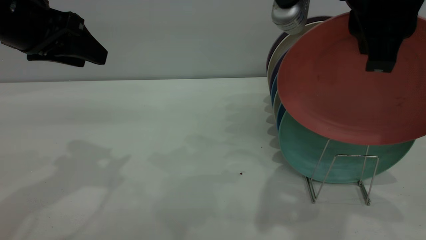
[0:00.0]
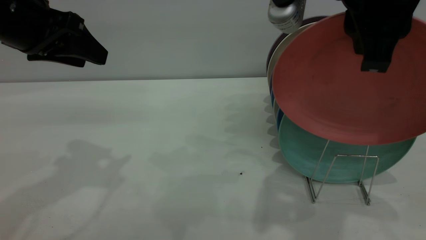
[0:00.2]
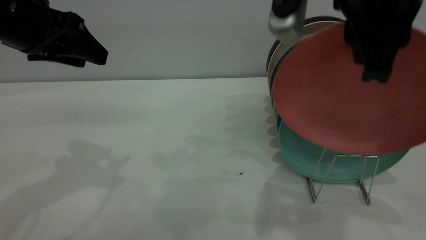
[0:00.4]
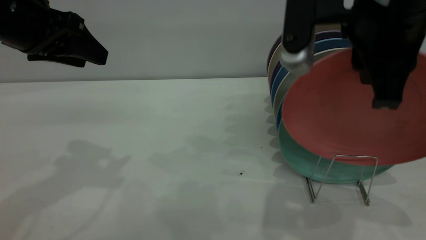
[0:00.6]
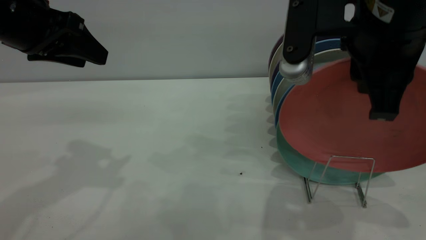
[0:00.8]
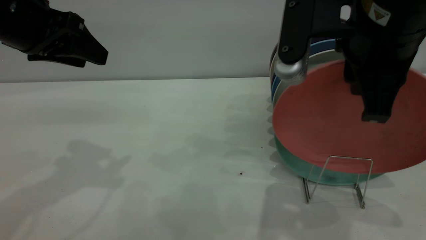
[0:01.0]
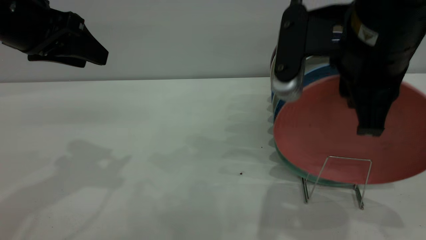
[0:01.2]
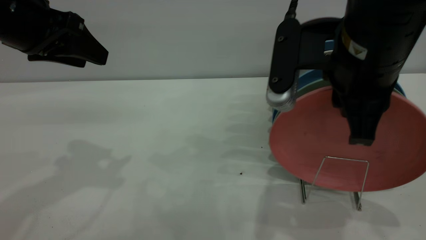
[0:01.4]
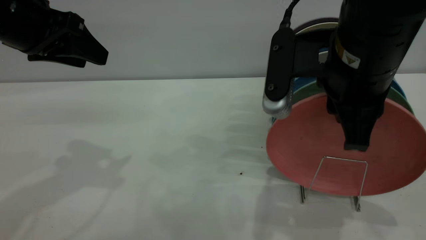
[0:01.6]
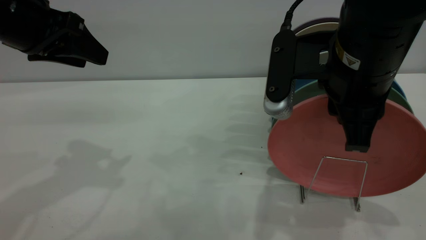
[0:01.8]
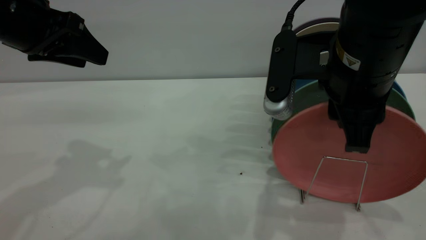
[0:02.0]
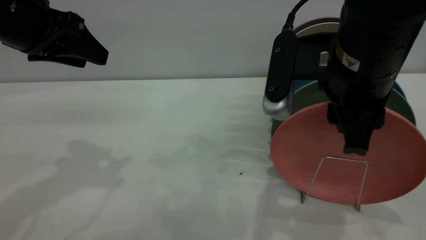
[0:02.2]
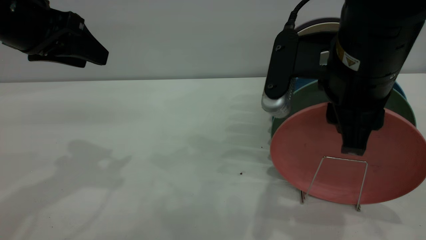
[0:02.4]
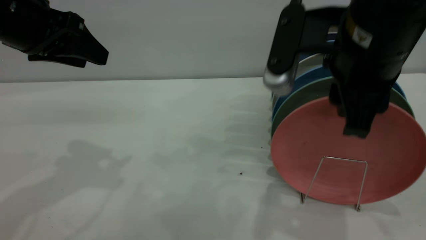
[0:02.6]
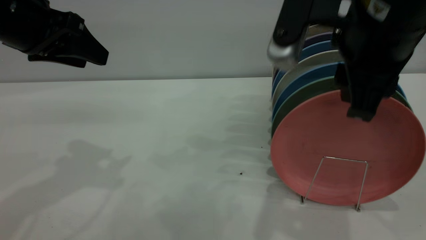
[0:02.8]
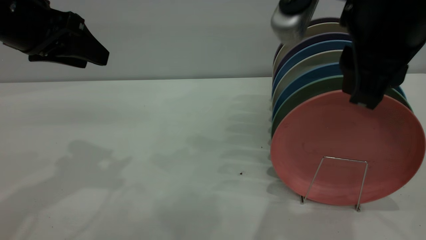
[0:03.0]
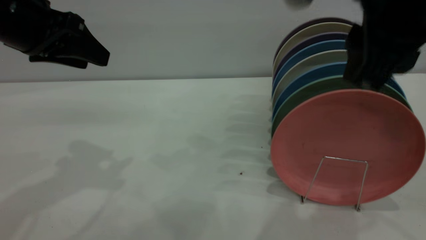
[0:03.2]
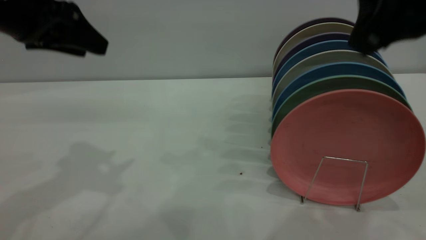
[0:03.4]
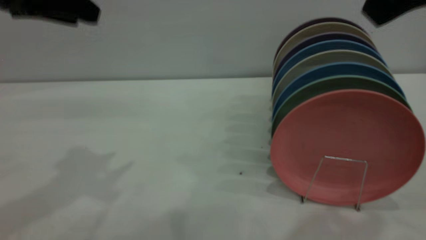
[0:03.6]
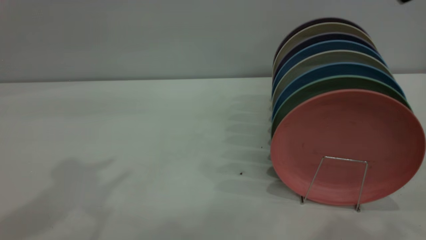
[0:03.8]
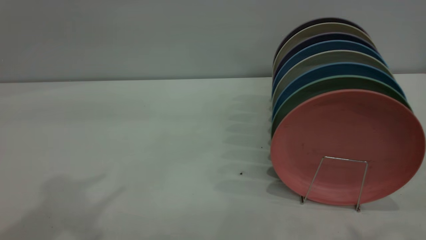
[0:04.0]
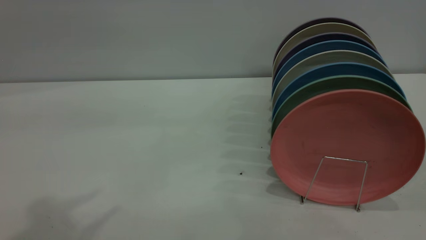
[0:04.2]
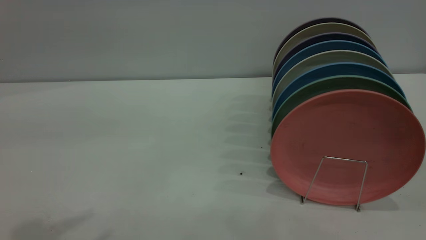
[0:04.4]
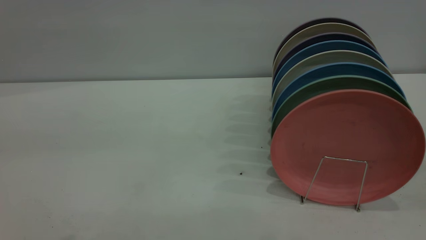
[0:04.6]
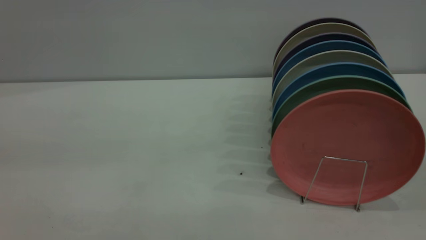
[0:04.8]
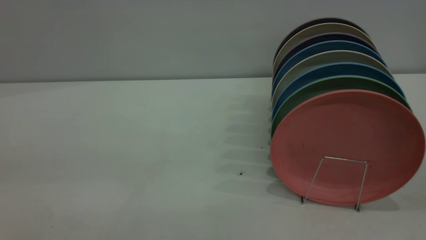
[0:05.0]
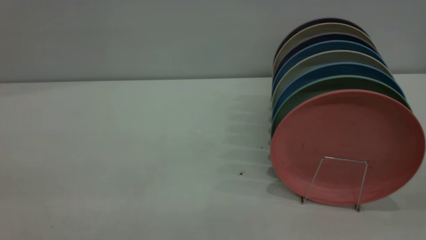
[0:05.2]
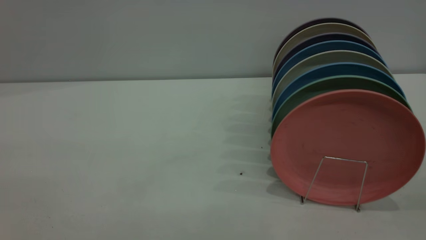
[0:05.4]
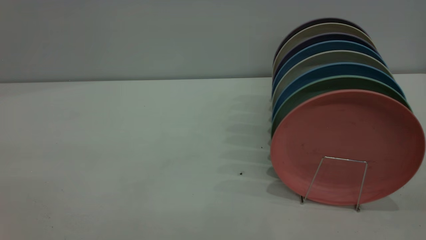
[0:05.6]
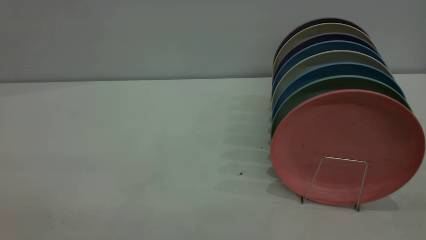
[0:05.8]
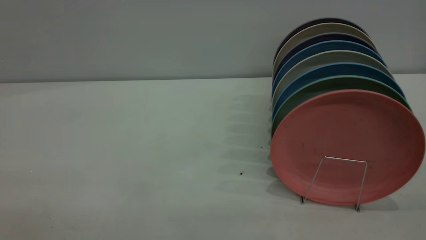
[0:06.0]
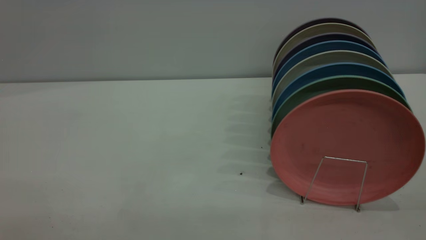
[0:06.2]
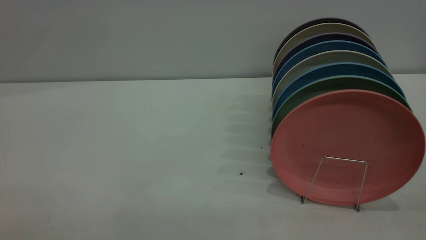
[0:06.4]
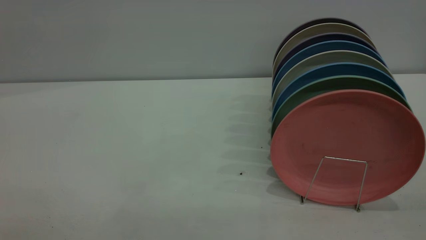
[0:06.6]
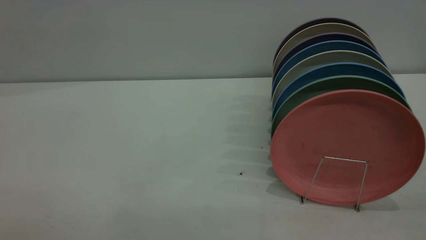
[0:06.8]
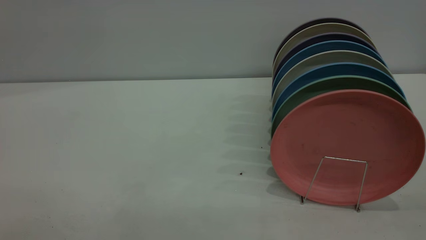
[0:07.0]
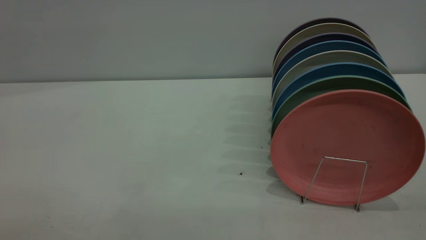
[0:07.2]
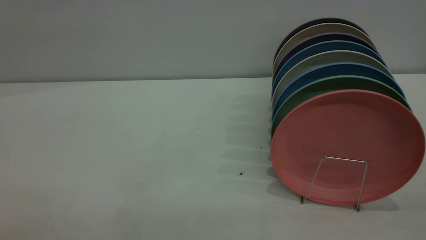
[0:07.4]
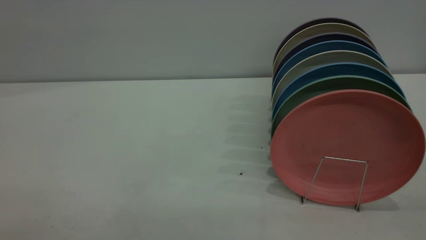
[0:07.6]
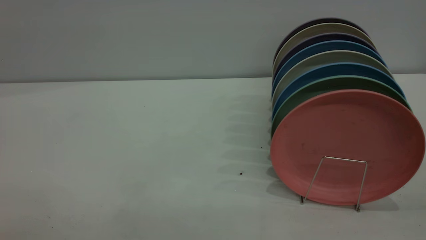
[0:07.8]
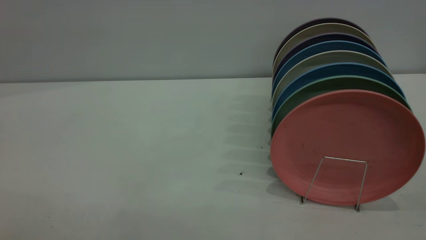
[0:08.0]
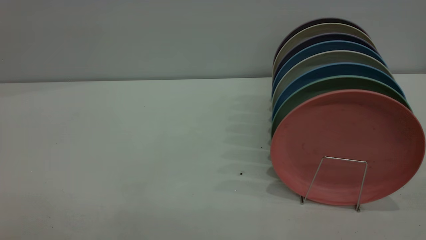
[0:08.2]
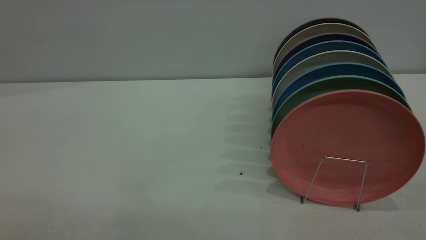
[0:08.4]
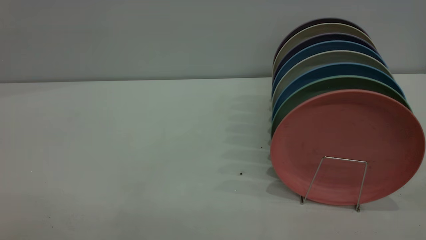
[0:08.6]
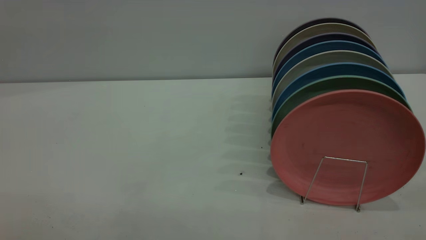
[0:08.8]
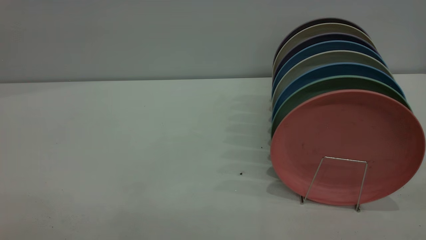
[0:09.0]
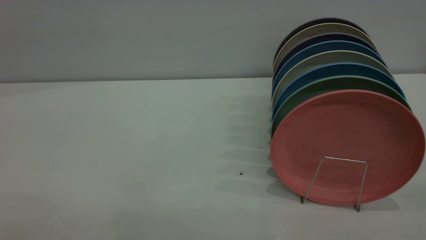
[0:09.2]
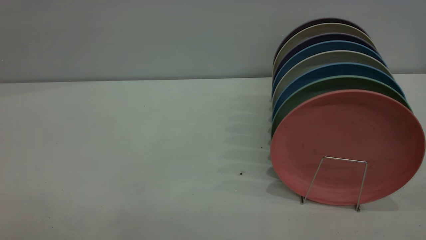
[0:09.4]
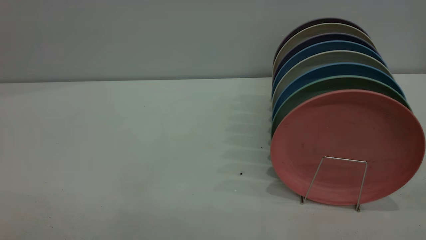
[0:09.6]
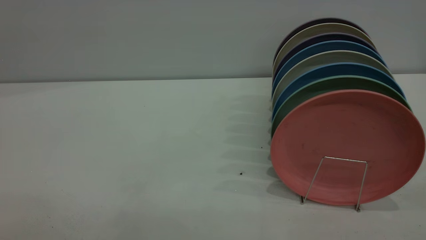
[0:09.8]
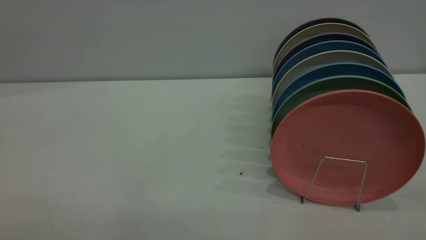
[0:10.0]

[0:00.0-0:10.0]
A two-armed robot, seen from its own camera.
Task of the whole recording: put the plate on the plate rack.
Step, 0:00.0 to 0:03.4: Place the plate on the shelf.
0:00.0 to 0:01.4: The right gripper heads downward, covering approximately 10 cm.
0:01.4 to 0:02.8: The right gripper opens its fingers.
0:02.8 to 0:04.2: The left gripper travels upward and backward by some 20 cm; the right gripper moves upward, backward and to the right, some 20 cm.
0:08.6 to 0:10.0: The two grippers keep their place.
